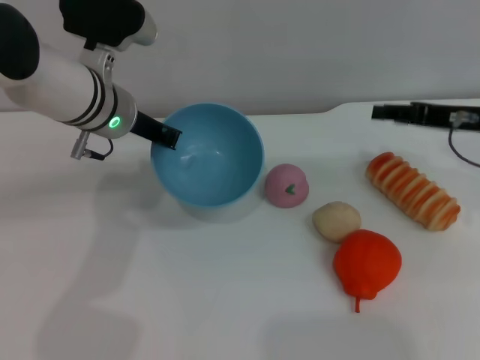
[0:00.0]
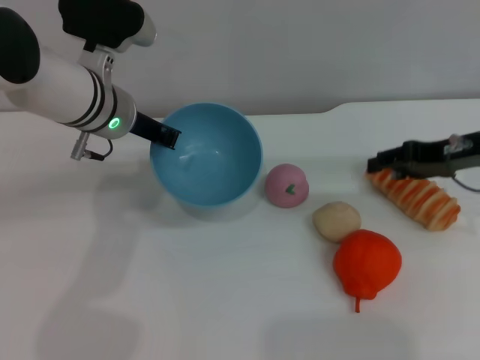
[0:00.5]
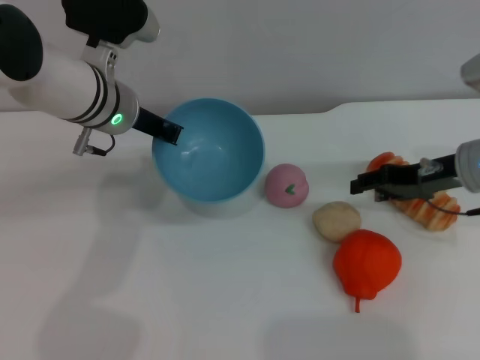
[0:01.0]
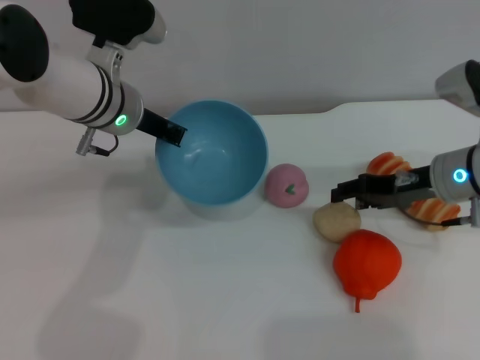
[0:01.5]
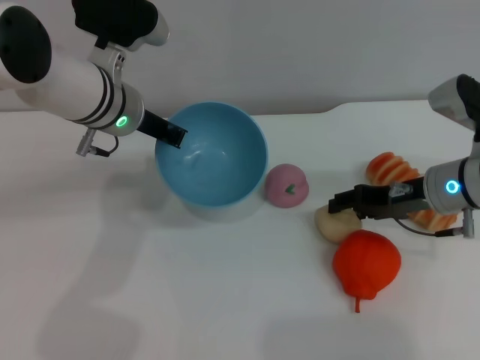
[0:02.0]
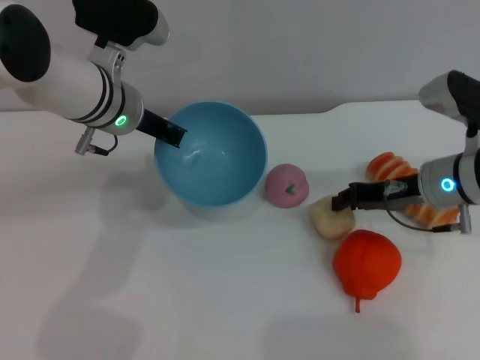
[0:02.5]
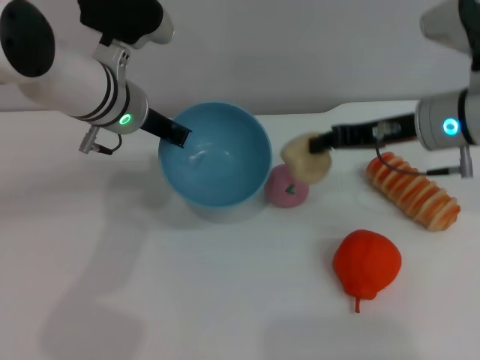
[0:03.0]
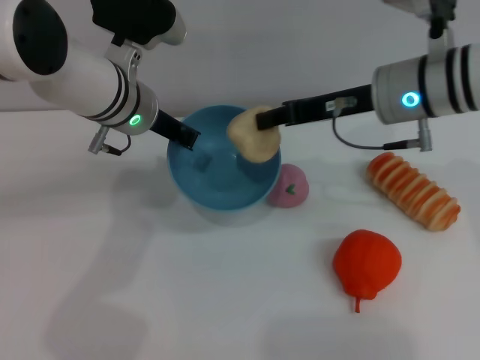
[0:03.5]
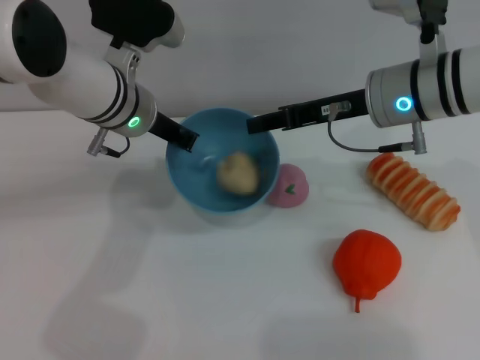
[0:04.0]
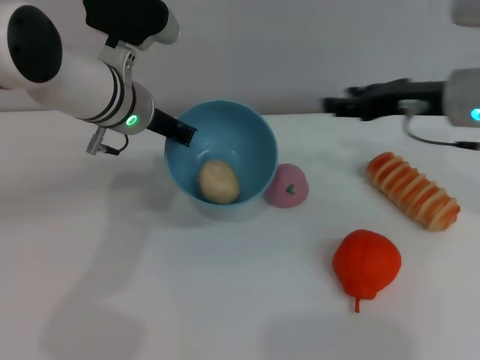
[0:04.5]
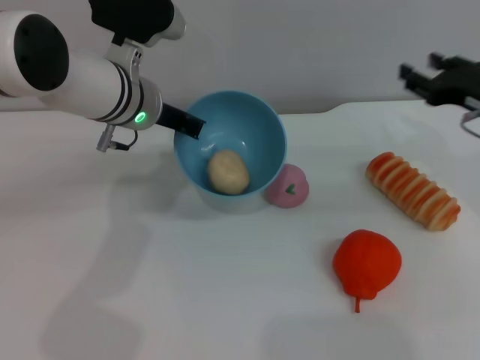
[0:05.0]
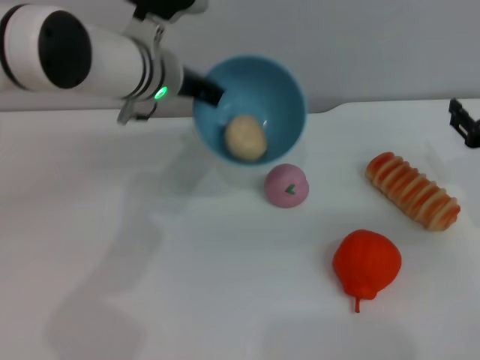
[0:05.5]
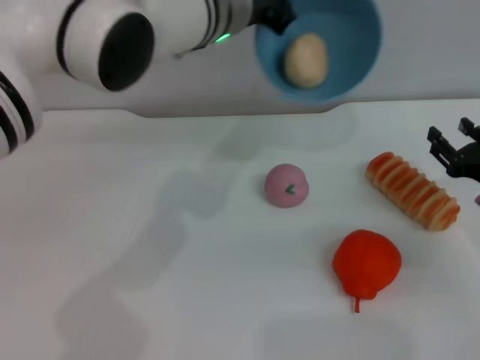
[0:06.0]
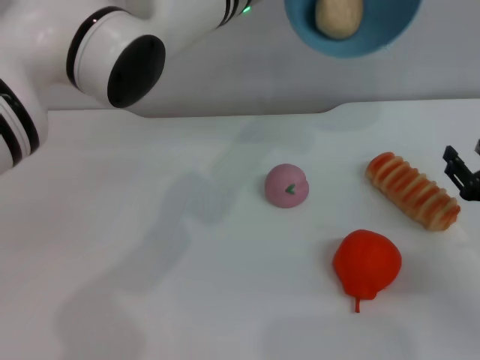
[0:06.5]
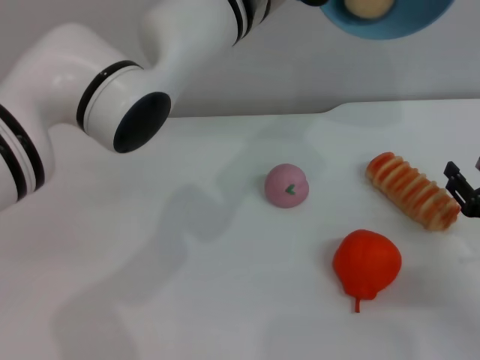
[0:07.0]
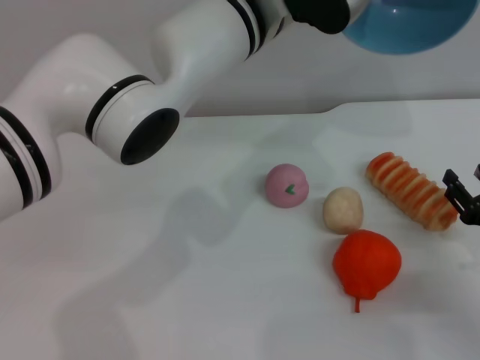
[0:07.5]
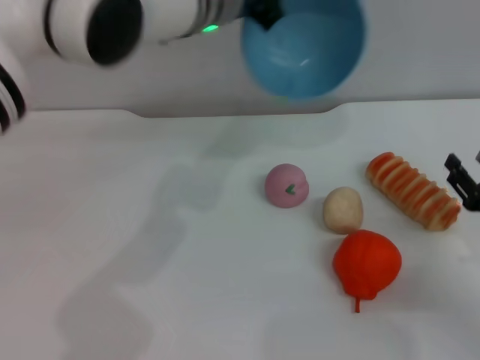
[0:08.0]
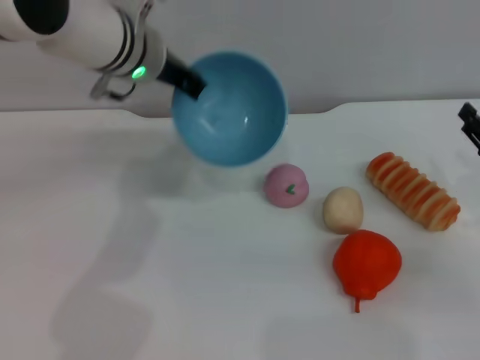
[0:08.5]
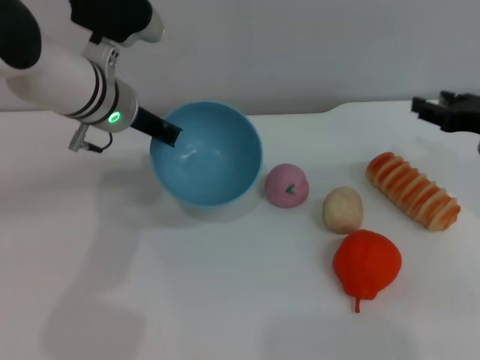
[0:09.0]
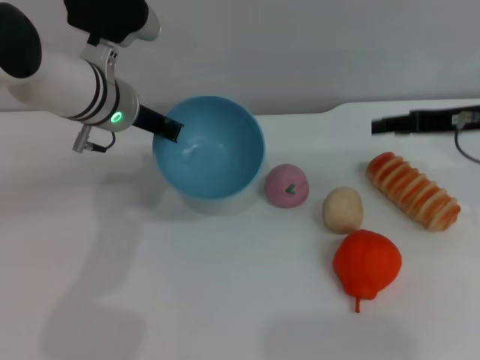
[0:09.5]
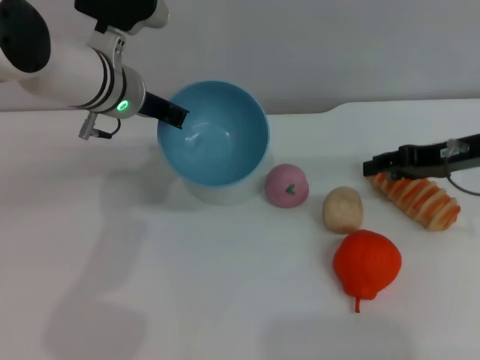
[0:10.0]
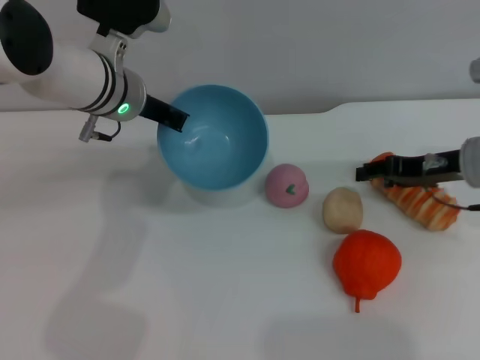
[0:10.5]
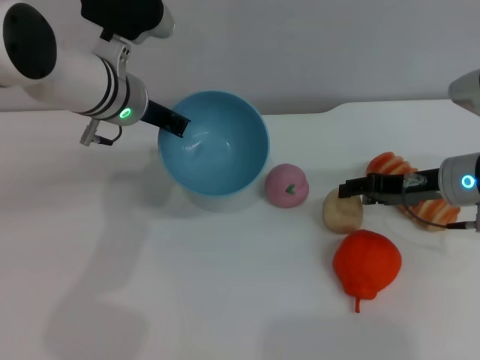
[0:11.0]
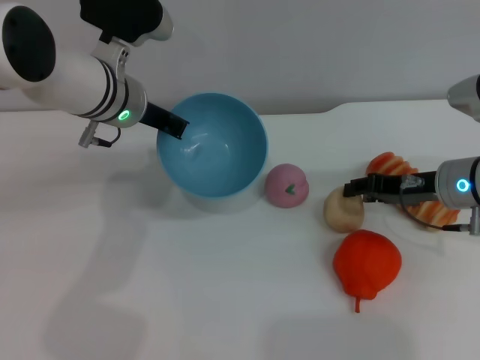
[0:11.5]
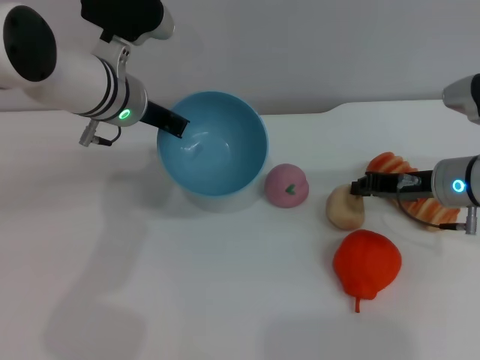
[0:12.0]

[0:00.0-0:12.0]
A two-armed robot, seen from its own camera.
Task of the whole recording: put the egg yolk pastry into the blue bowl and pour it out repeatedly.
Step, 0:00.0 to 0:02.5: Pick up the egg yolk pastry with the right gripper.
Step, 0:03.0 to 0:05.0: Place the egg yolk pastry into the bowl.
Step, 0:05.5 to 0:07.5: Pour the egg yolk pastry out of bowl.
0:00.0 to 0:02.0: The right gripper is displaced downward and to the left by approximately 10 cm.
0:02.0 to 0:04.0: The right gripper shifts about 10 cm upward and to the left, and closes up.
0:04.0 to 0:06.0: The left gripper moves to the right and upward, about 10 cm; the right gripper moves to the right, downward and backward, some 20 cm, and opens up.
0:06.0 to 0:08.0: The right gripper is displaced backward by approximately 5 cm.
0:08.0 to 0:10.0: The right gripper shifts approximately 15 cm forward and upward. The left gripper heads to the left and downward, covering roughly 10 cm.
0:10.0 to 0:12.0: The right gripper goes roughly 5 cm downward, and closes up.

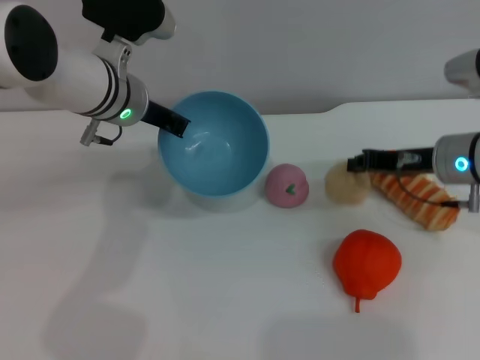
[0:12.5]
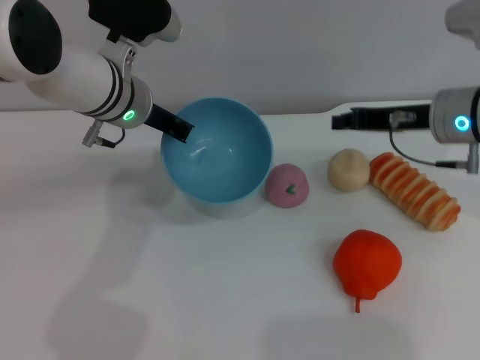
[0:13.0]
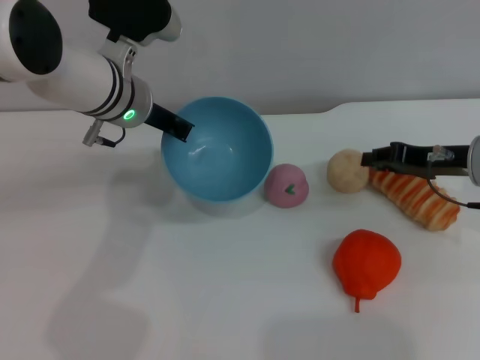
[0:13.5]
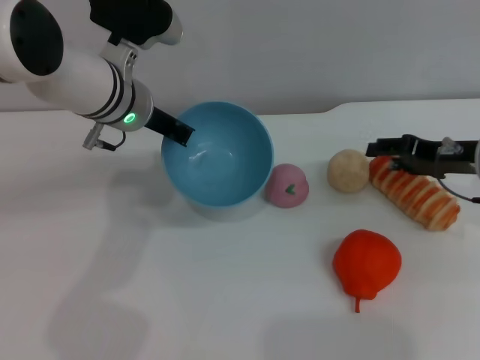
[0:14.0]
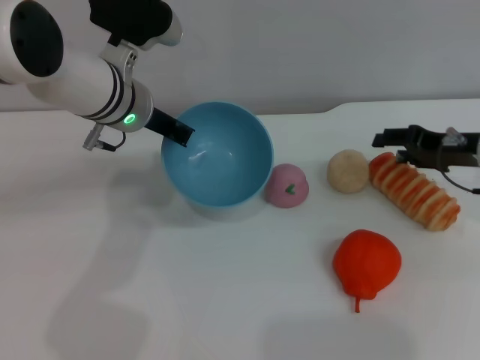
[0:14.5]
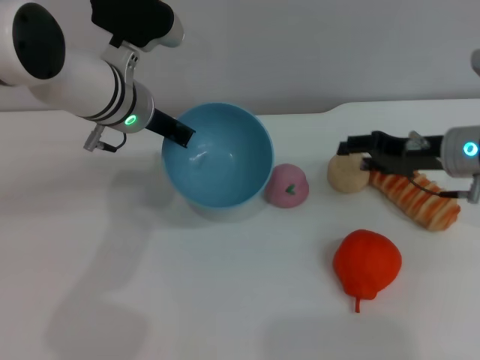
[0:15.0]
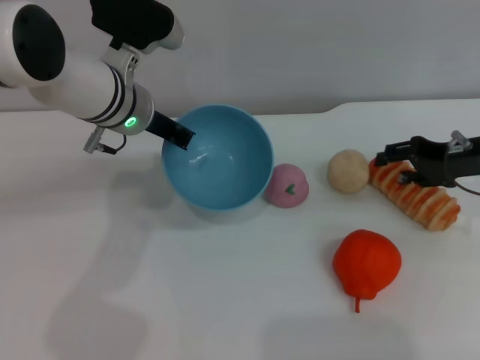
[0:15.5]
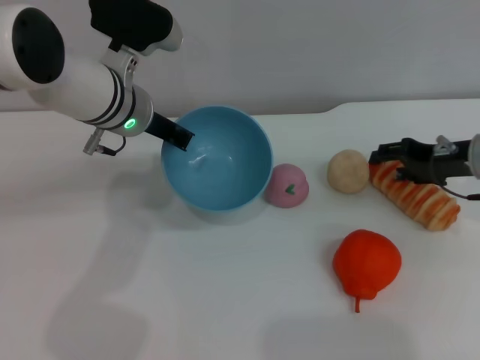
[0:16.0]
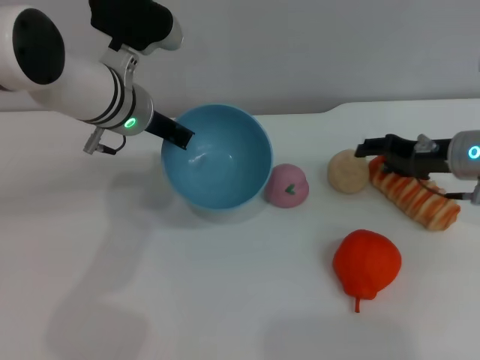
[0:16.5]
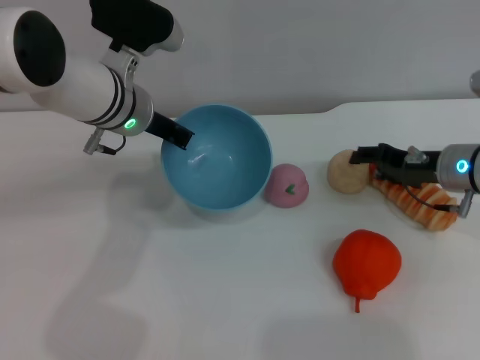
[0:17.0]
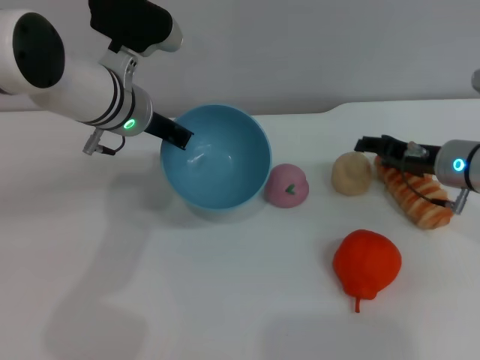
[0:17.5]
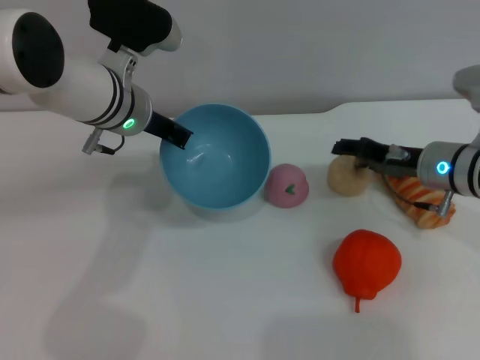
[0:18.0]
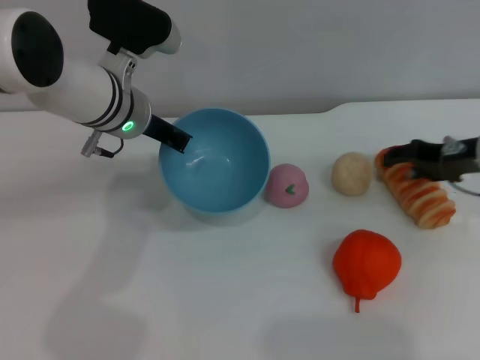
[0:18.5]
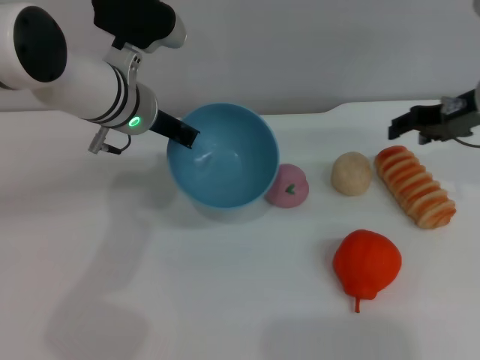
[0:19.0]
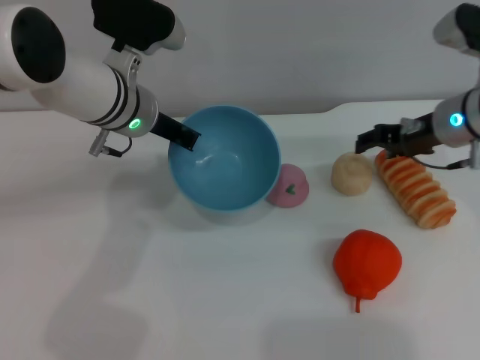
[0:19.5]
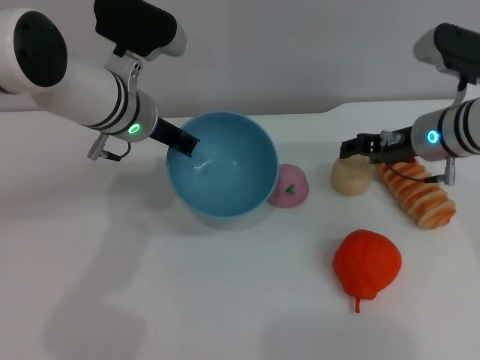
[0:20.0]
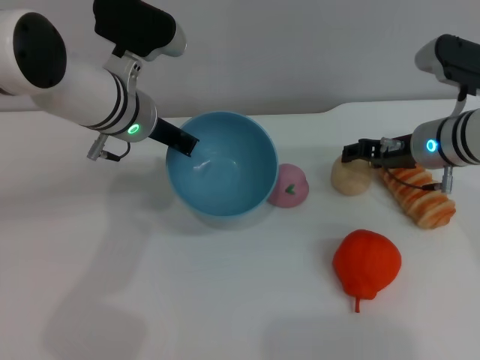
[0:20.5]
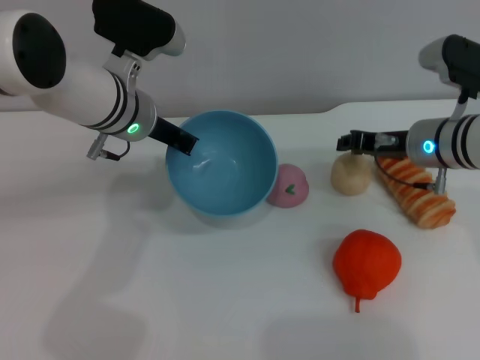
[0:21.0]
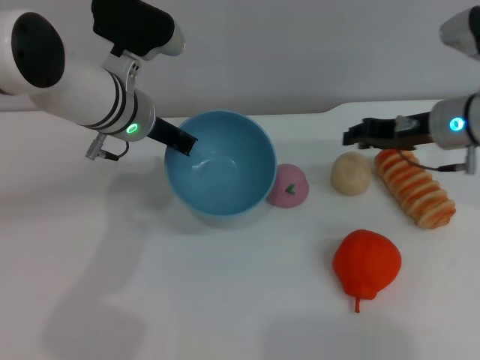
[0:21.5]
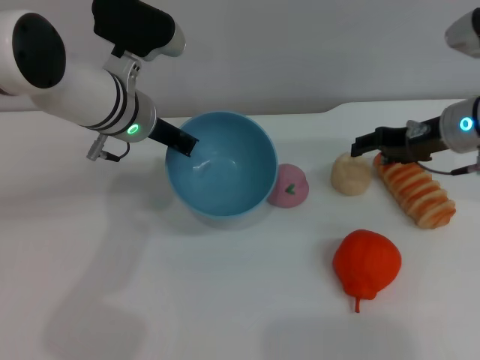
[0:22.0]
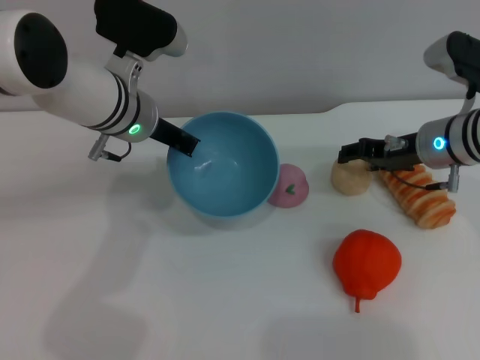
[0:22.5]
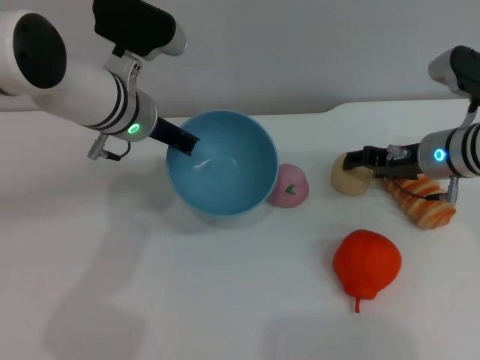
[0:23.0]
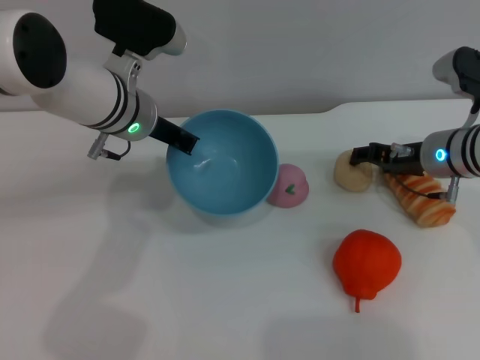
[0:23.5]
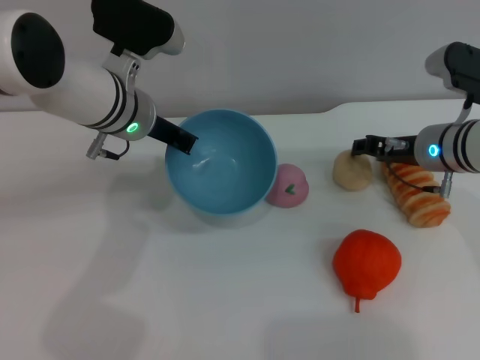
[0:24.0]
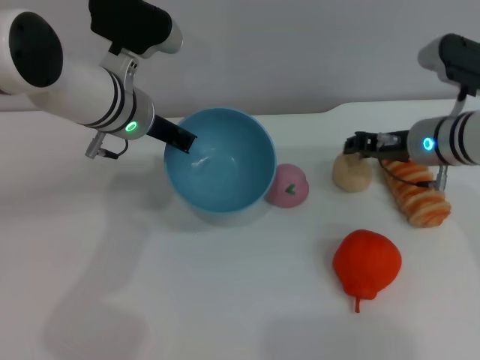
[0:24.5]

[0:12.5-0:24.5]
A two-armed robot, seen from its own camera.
Task of the whole recording: put the egg yolk pastry into the blue bowl and pour it out repeatedly.
0:12.5 to 0:14.5: The right gripper opens up.
0:14.5 to 0:16.5: The grippers stay close to where they were, moving slightly.
0:16.5 to 0:18.5: The grippers move only a little.
0:18.5 to 0:20.5: The right gripper goes some 5 cm to the left.
0:20.5 to 0:22.5: The right gripper closes and opens again.
0:22.5 to 0:24.5: The right gripper closes.

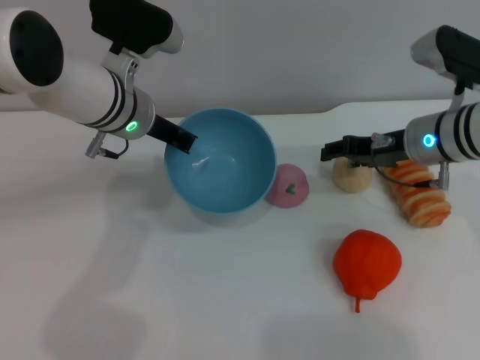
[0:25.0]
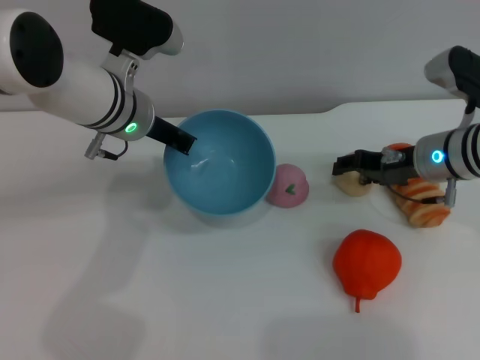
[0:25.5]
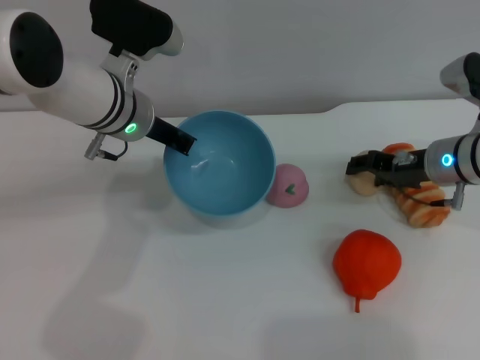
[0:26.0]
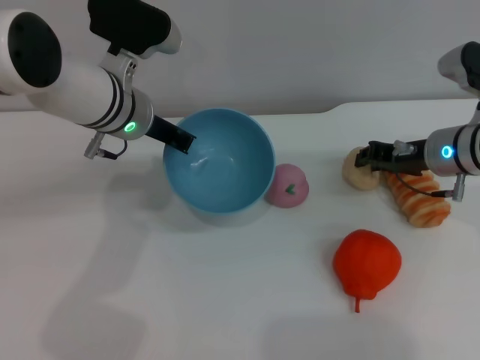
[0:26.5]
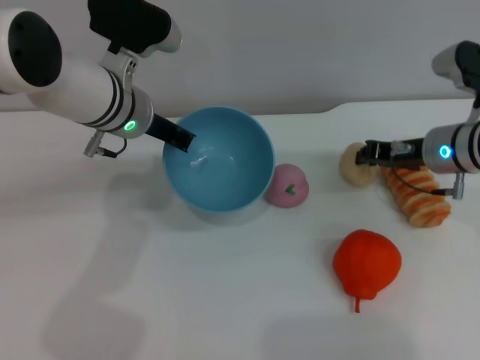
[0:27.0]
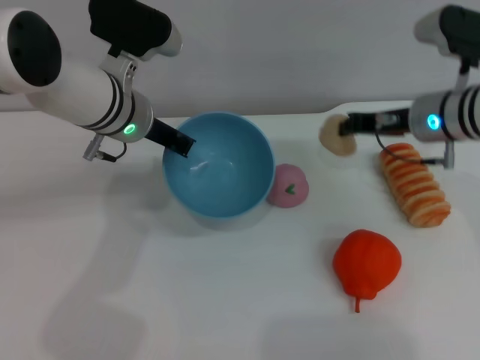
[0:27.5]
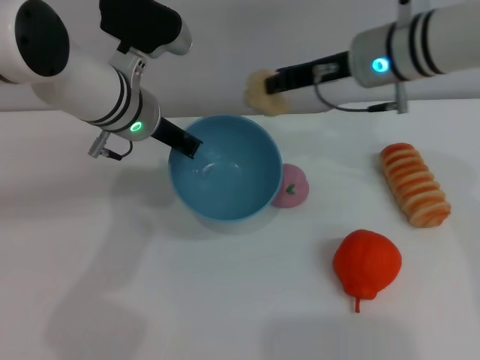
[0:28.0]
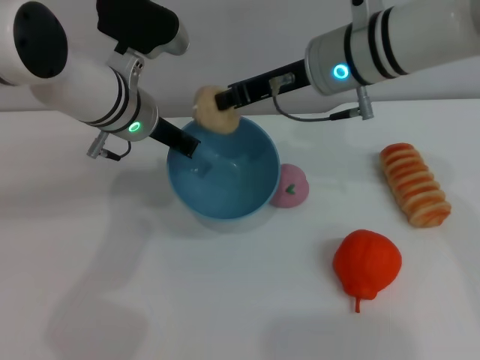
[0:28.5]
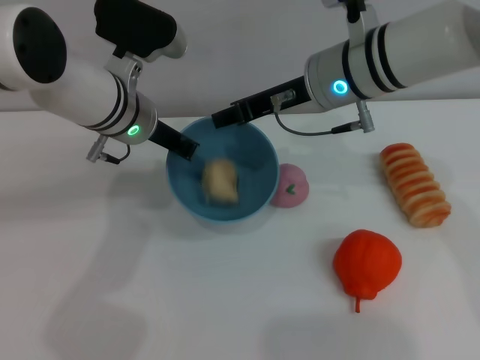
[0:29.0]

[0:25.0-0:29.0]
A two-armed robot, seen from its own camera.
Task of the whole recording: put the egg yolk pastry into the blue bowl and pour it out repeatedly.
Step, 0:25.0 to 0:27.5: Pick up the egg yolk pastry with the right gripper.
0:25.0 to 0:27.0: The right gripper closes its fingers.
0:27.0 to 0:29.0: The right gripper is displaced to the left and upward by approximately 15 cm.
